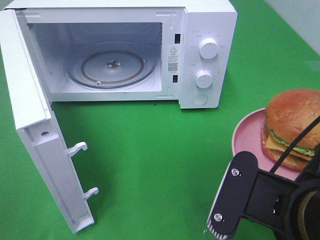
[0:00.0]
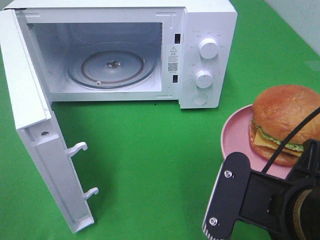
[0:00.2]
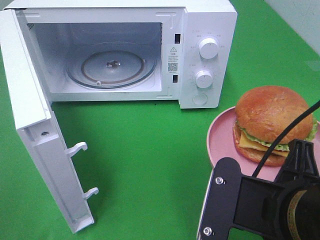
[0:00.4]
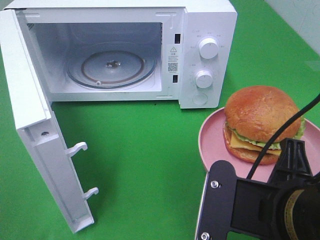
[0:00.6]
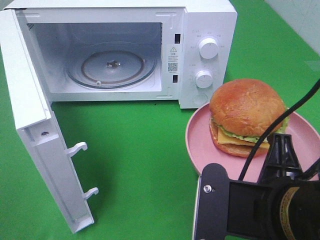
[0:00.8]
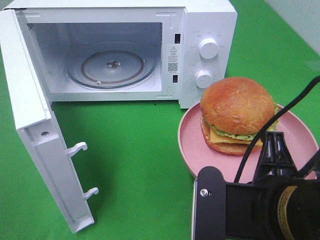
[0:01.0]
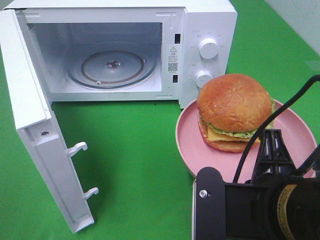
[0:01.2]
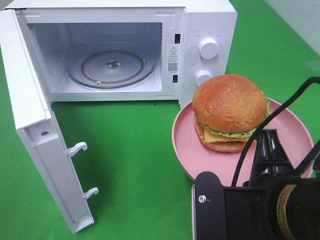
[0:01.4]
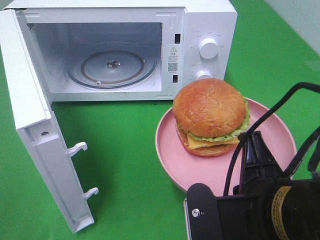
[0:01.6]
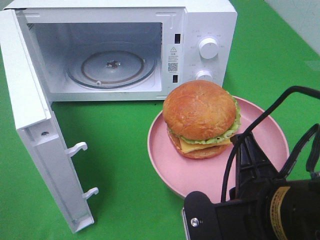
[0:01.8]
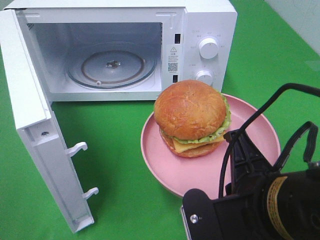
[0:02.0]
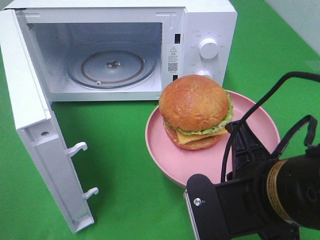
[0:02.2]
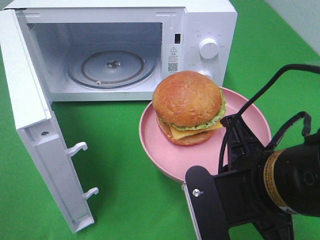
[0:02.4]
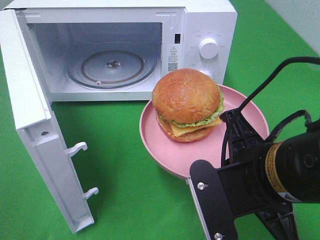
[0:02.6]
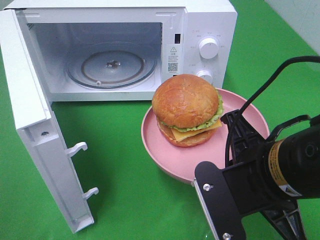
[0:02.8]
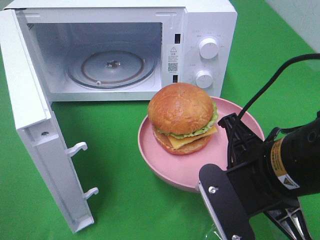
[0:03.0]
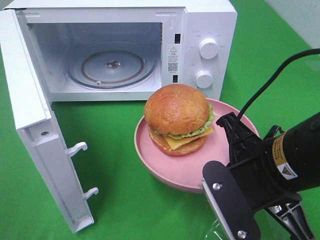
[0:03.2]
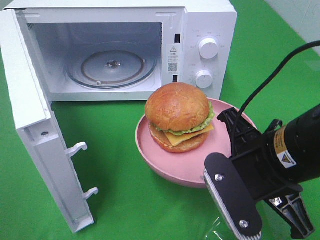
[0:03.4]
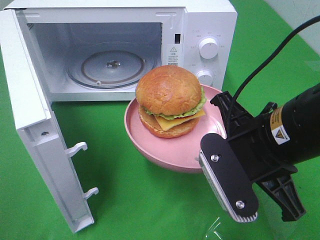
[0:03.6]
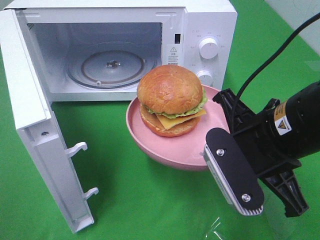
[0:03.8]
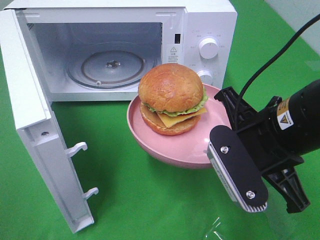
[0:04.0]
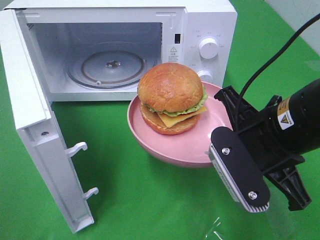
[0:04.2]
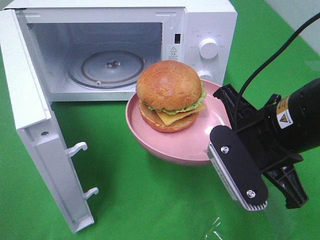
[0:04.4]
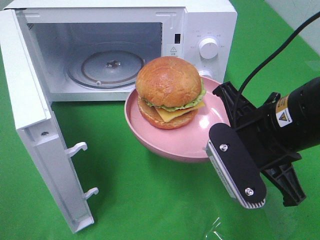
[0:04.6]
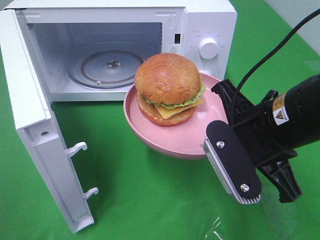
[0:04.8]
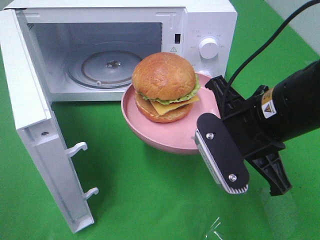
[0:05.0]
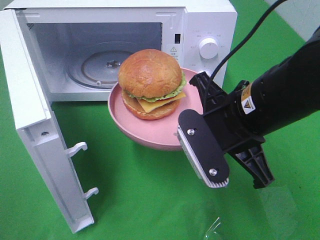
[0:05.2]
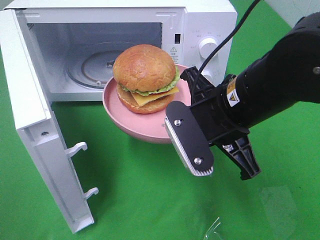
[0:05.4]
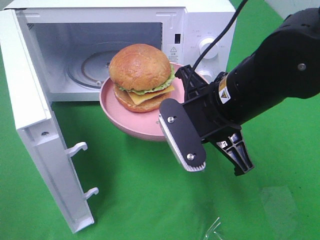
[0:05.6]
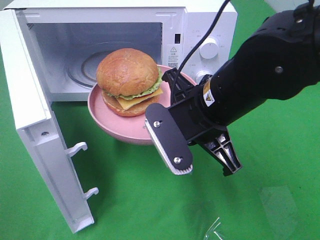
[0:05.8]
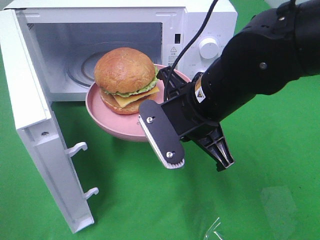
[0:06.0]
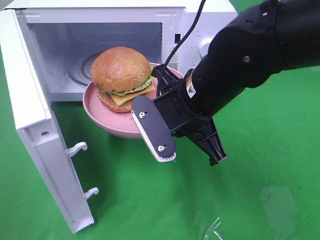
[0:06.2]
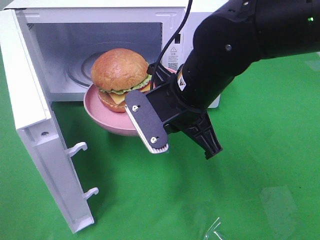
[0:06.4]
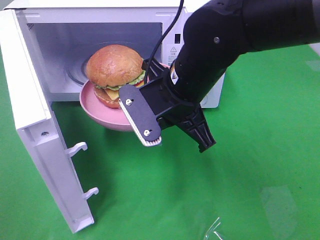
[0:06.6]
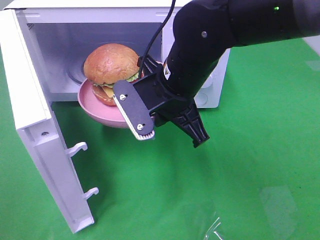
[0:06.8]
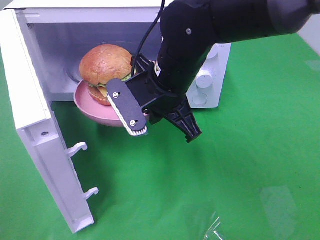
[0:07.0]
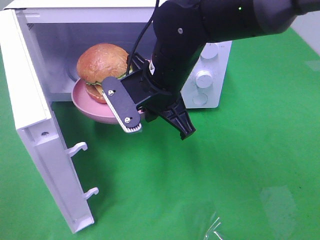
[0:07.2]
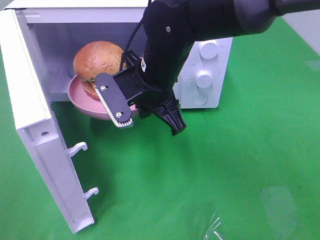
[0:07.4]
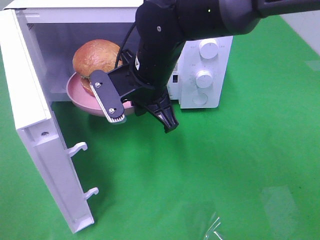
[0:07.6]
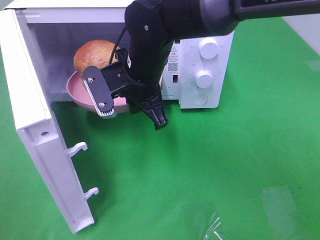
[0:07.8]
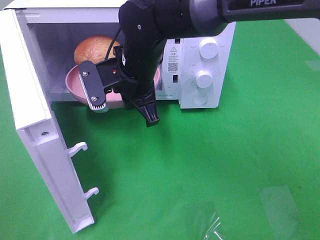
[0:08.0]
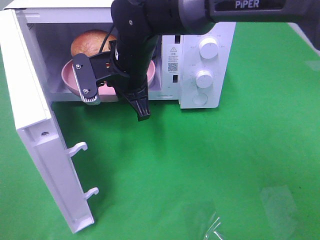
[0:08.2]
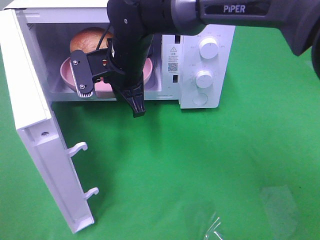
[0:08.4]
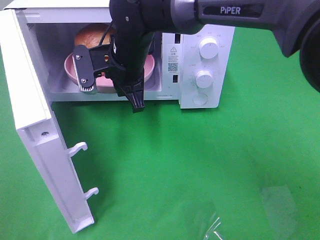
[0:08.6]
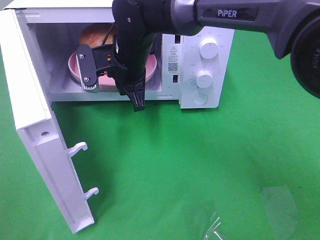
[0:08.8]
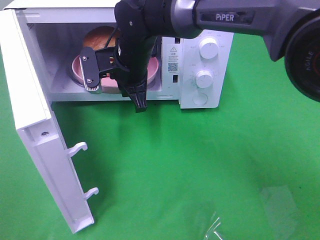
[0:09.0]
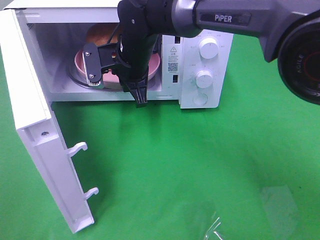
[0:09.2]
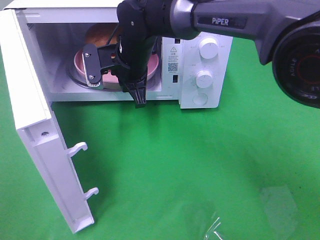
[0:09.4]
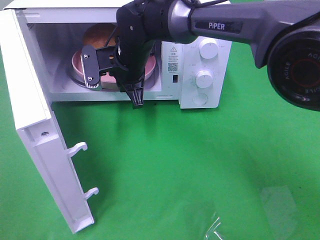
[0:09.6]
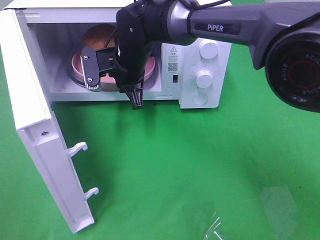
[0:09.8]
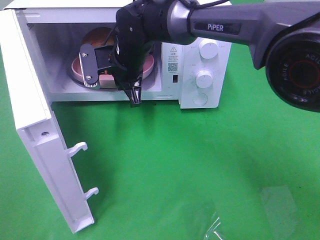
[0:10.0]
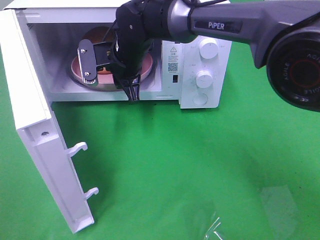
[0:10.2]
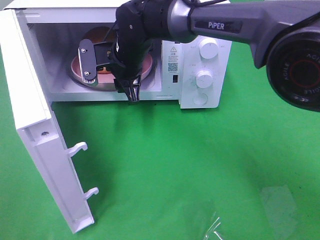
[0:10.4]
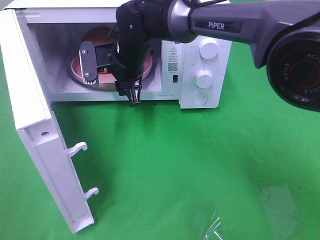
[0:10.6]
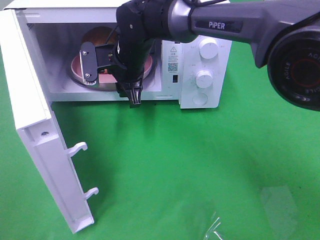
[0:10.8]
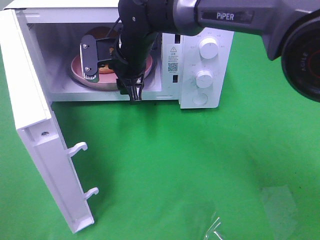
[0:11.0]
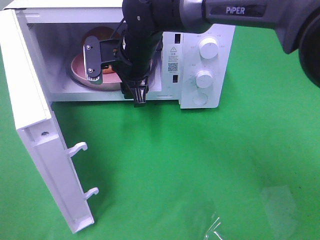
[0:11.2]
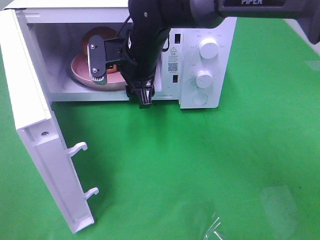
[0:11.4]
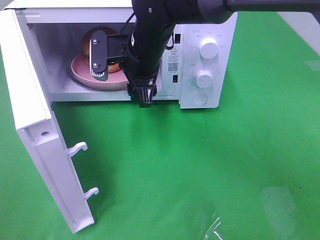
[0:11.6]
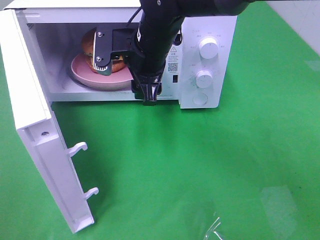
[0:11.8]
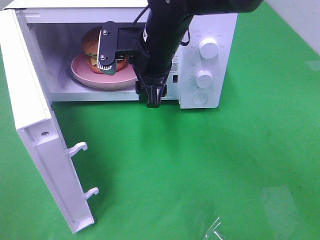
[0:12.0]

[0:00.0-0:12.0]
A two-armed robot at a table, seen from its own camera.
Task of the whole recording: Heat the burger.
Step, 0:00.0 to 0:11.2: Right hand: place the plate in the microwave.
0:01.6 to 0:03.0: The right gripper is displaced forward by roughly 5 cm.
0:04.4 to 0:06.0: The right gripper travels to the left and forward by some 10 cm.
0:06.0 to 0:07.6: The right gripper heads forward and to the left, covering some 10 cm.
0:07.6 to 0:09.0: The right gripper goes about 10 cm forward.
0:09.0 to 0:10.4: The right gripper opens.
0:10.4 to 0:12.0: The right gripper shifts roughly 10 cm backward, to the right and upward.

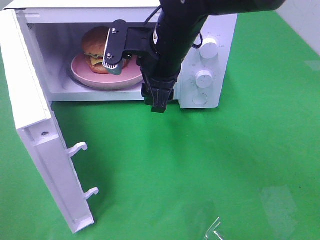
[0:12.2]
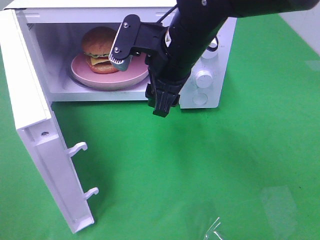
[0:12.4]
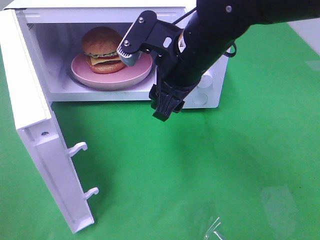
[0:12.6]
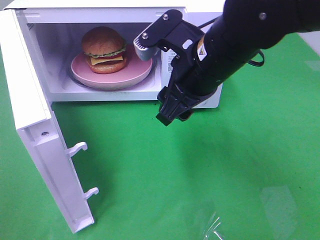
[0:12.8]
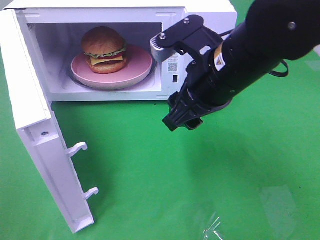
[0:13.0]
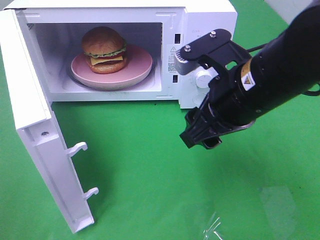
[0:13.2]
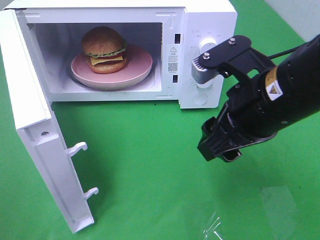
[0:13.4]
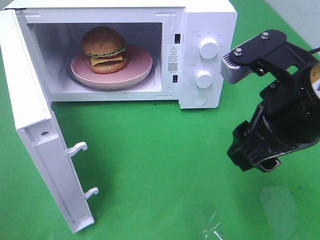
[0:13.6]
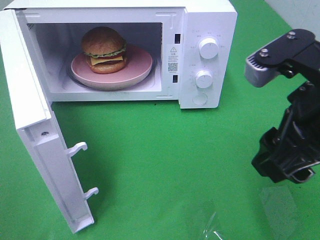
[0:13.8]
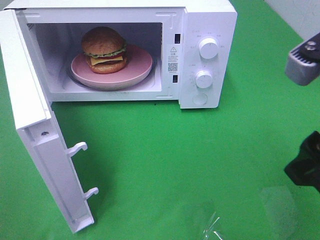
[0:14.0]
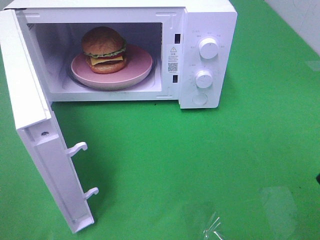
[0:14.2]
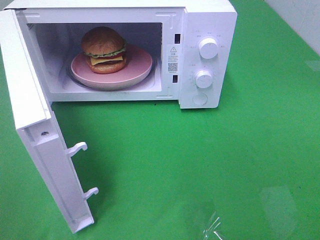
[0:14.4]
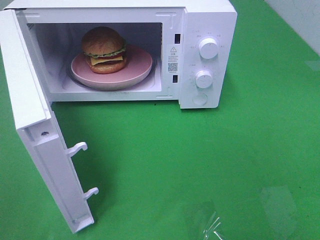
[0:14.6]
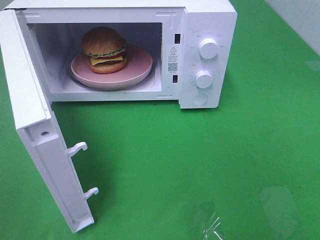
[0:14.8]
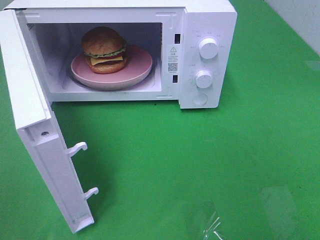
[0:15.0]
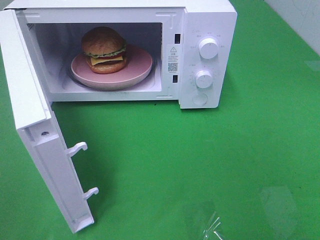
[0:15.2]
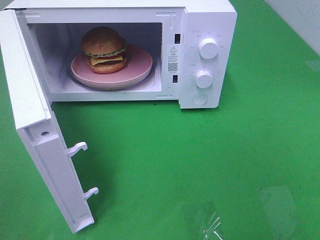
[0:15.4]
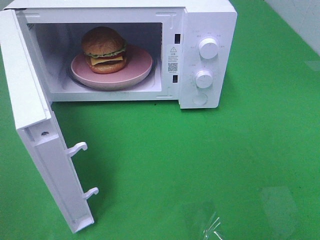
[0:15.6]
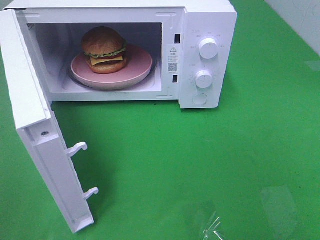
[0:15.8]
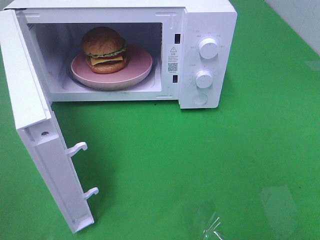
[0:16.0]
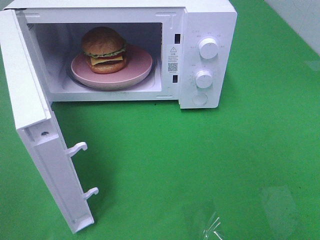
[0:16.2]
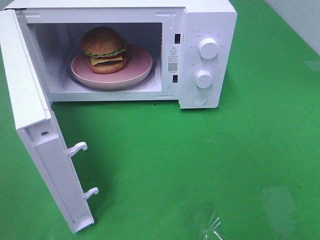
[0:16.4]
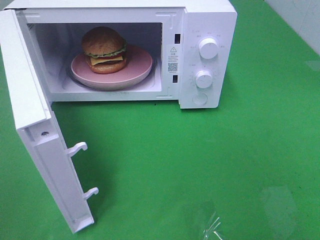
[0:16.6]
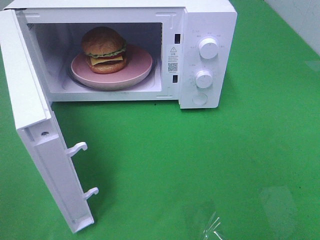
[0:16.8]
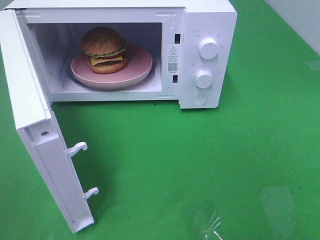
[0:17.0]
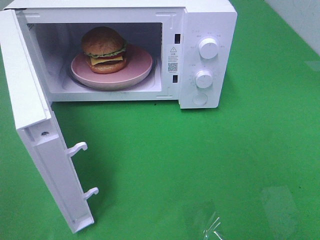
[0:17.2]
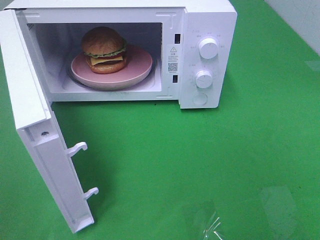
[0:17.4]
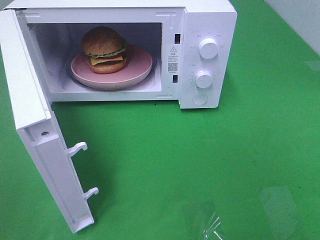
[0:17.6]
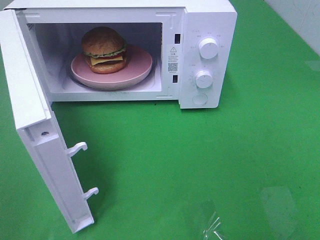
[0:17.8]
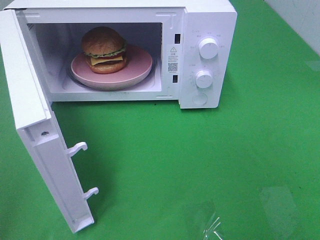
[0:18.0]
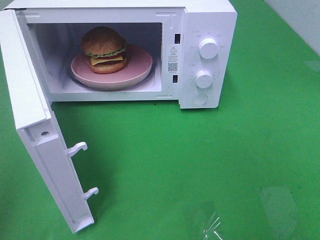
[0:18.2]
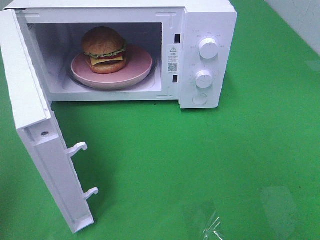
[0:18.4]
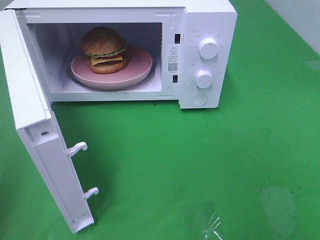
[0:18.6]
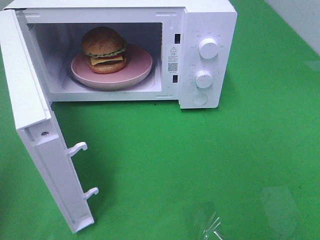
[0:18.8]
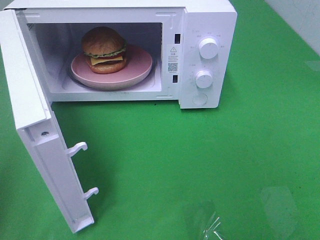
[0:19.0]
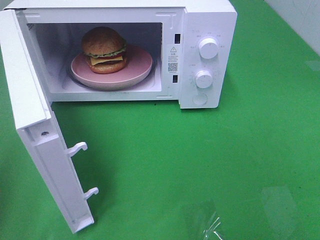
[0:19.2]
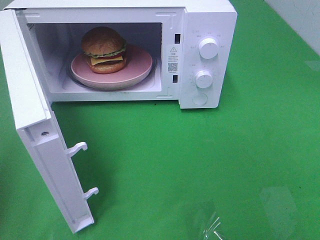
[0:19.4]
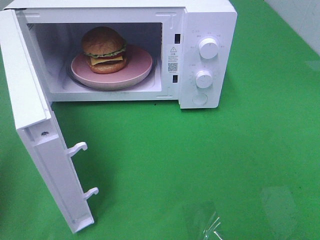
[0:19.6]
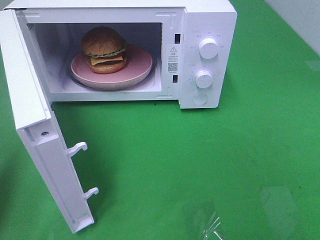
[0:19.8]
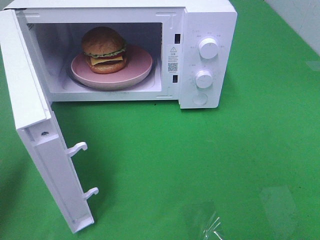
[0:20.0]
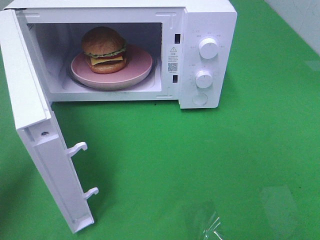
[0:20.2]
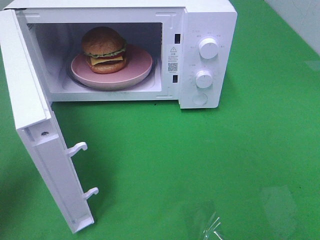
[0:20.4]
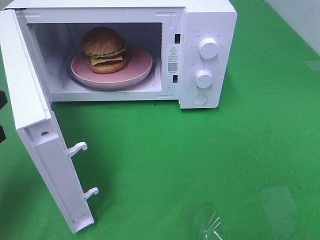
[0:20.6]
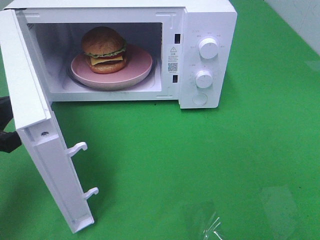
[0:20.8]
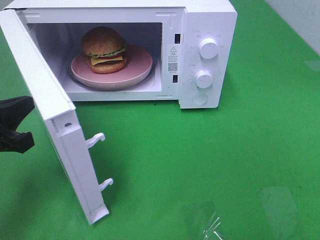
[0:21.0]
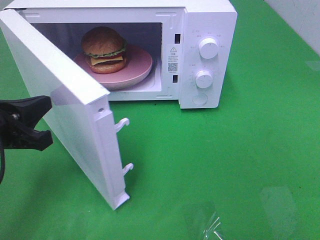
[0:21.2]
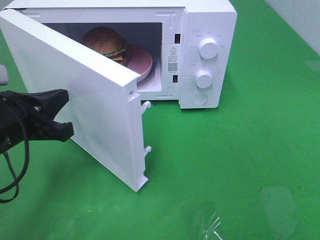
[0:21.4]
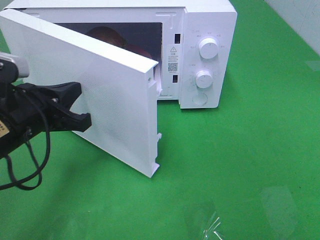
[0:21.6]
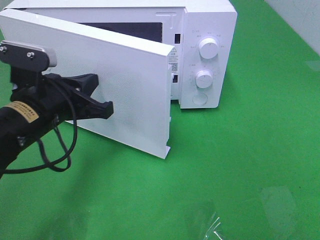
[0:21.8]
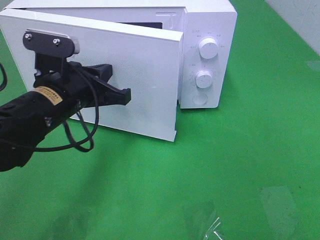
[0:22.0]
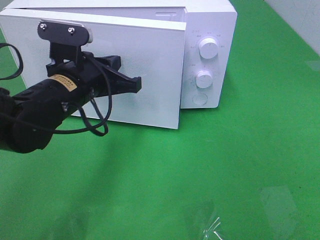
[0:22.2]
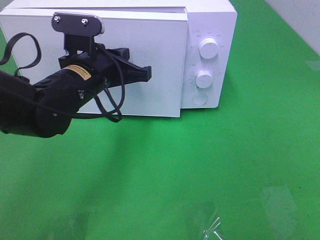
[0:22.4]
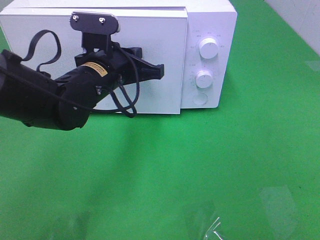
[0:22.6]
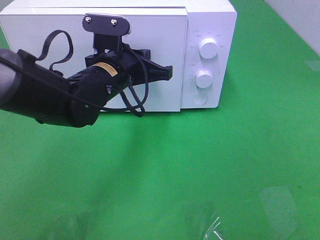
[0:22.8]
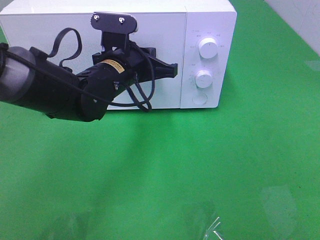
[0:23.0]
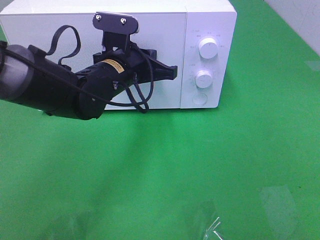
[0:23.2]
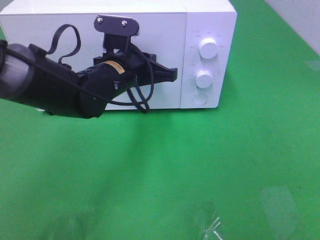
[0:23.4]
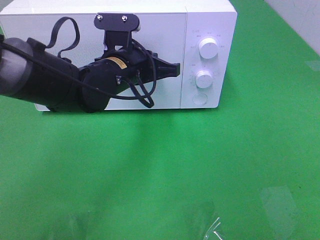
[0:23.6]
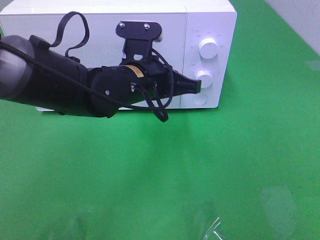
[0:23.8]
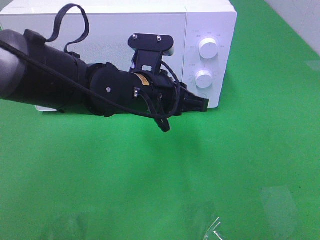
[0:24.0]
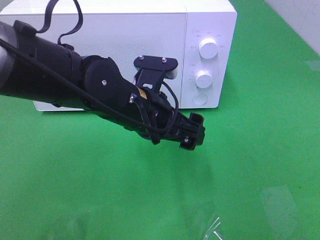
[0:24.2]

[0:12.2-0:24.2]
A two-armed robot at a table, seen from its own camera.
Task of the whole recording: Heat the burger.
Step, 0:12.2 to 0:23.6: Left hand: close the microwave door.
0:12.2 to 0:13.8: The right gripper heads backward and to the right, covering approximately 25 cm.
0:13.8 to 0:15.2: The right gripper heads backward and to the right, covering some 20 cm.
0:15.2 to 0:16.6: Neither gripper changes place.
0:19.8 to 0:21.2: The left gripper moves to the right, downward and forward, about 10 cm.
0:21.2 to 0:22.6: The left gripper moves to the right and forward, about 20 cm.
0:22.6 to 0:24.2: The left gripper goes approximately 10 cm backward and to the right, and opens up.
